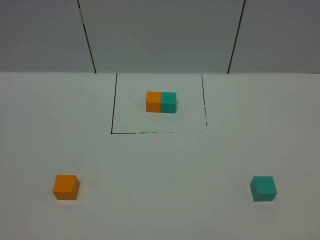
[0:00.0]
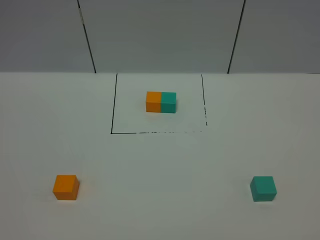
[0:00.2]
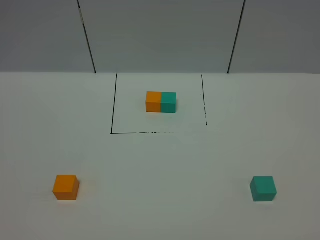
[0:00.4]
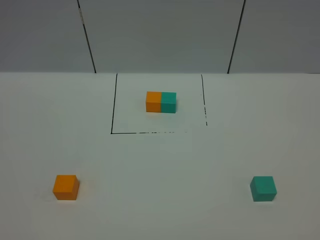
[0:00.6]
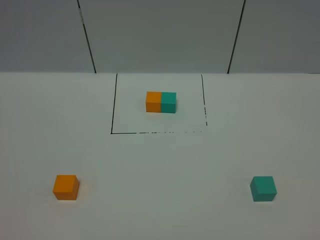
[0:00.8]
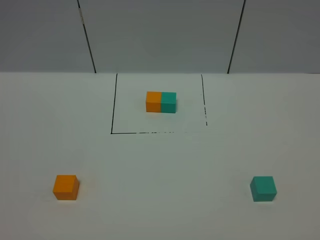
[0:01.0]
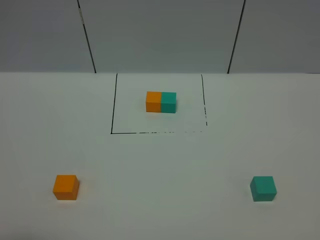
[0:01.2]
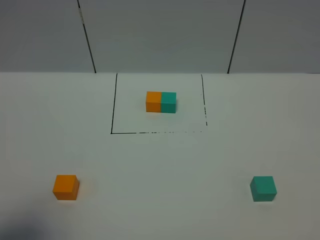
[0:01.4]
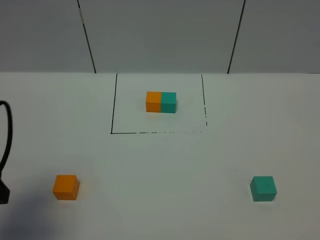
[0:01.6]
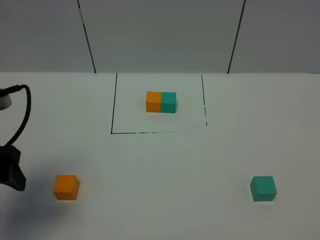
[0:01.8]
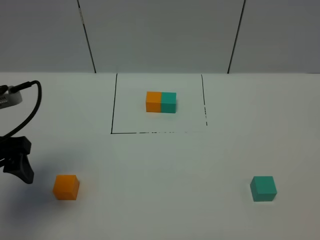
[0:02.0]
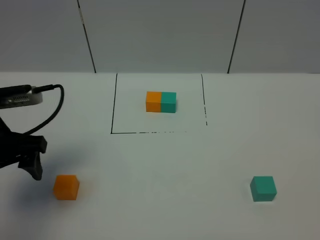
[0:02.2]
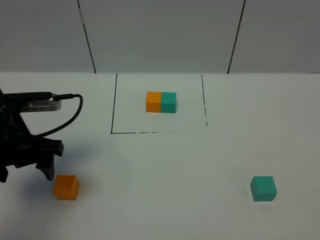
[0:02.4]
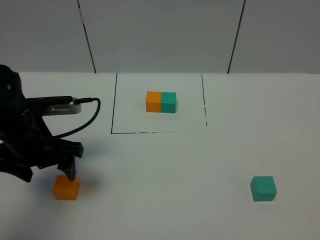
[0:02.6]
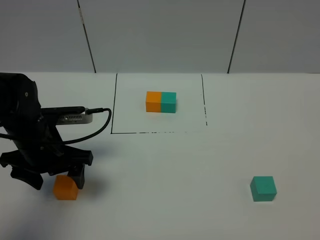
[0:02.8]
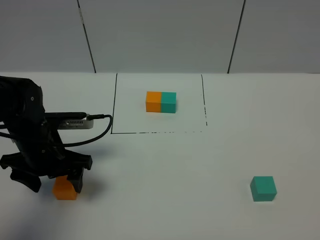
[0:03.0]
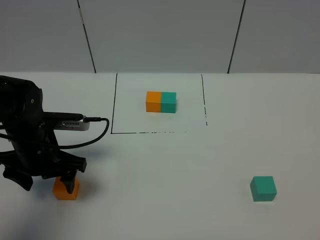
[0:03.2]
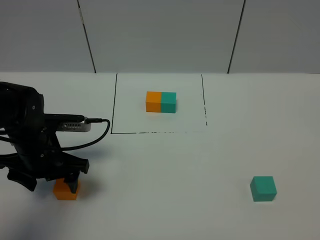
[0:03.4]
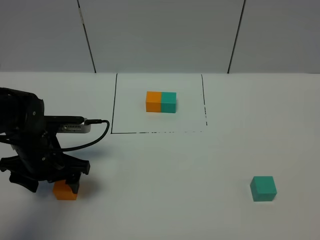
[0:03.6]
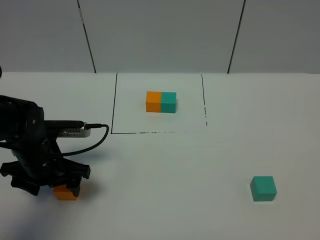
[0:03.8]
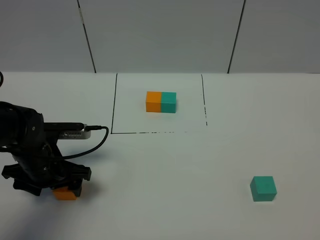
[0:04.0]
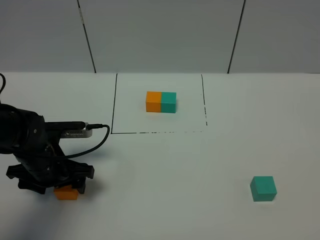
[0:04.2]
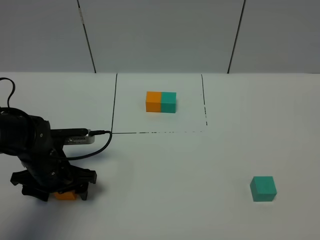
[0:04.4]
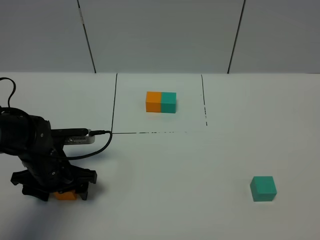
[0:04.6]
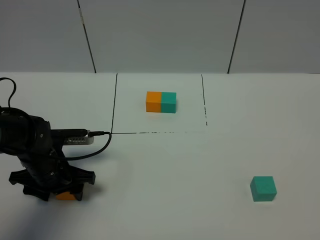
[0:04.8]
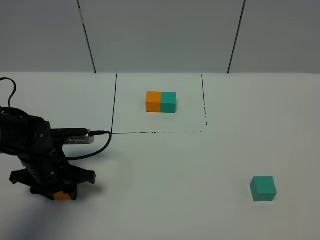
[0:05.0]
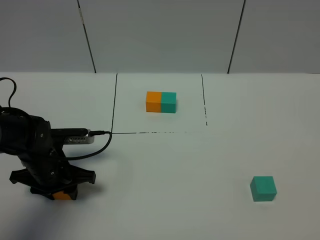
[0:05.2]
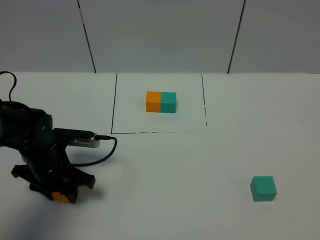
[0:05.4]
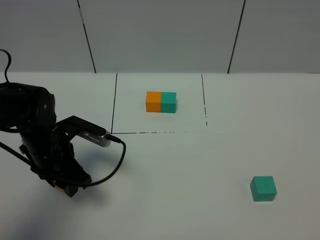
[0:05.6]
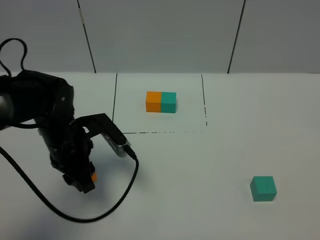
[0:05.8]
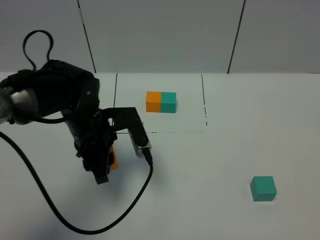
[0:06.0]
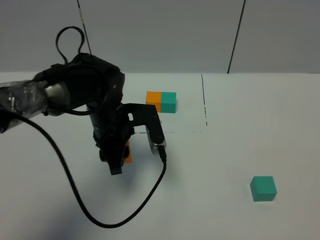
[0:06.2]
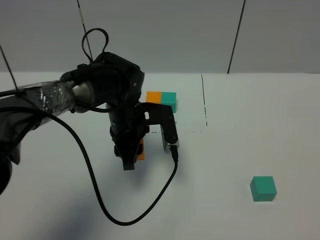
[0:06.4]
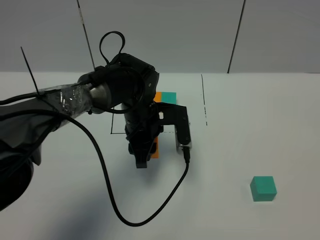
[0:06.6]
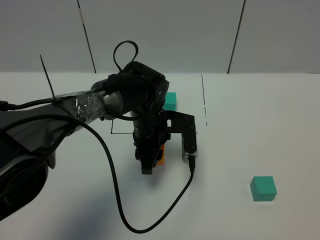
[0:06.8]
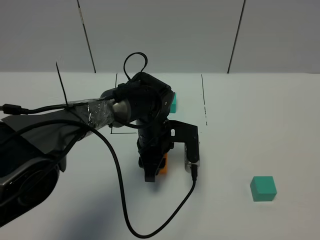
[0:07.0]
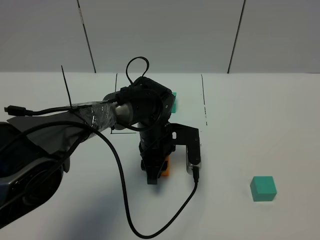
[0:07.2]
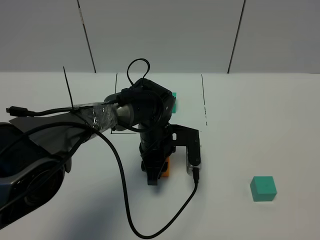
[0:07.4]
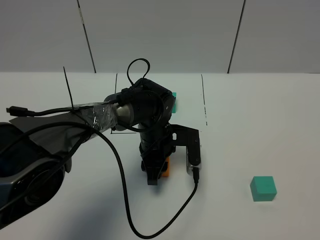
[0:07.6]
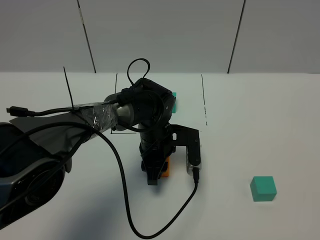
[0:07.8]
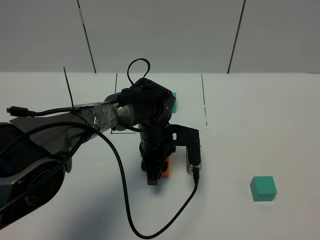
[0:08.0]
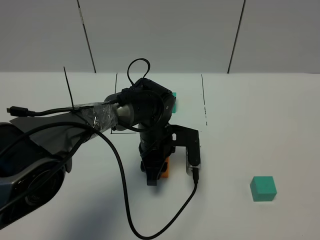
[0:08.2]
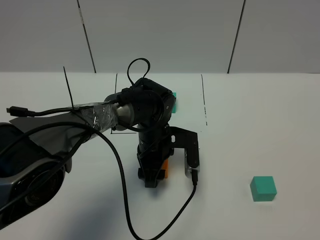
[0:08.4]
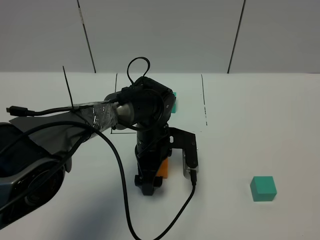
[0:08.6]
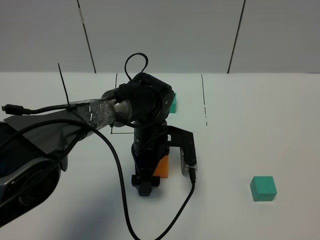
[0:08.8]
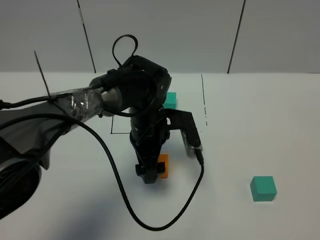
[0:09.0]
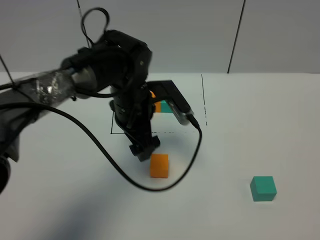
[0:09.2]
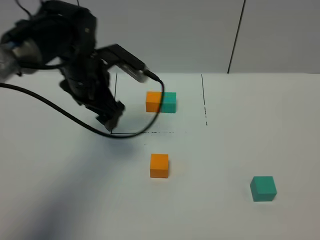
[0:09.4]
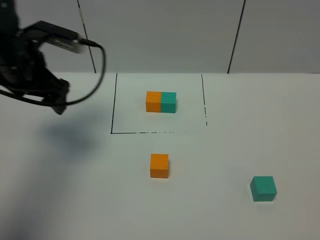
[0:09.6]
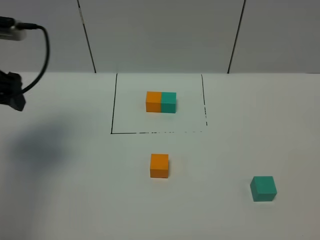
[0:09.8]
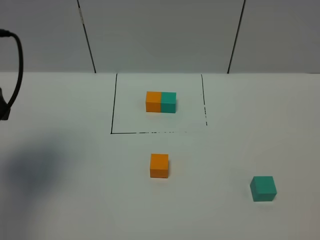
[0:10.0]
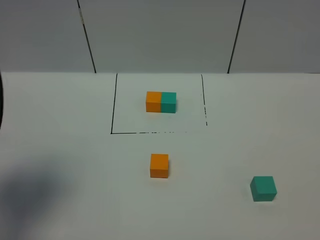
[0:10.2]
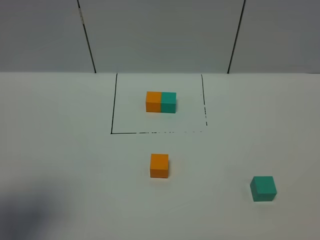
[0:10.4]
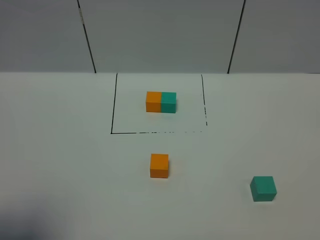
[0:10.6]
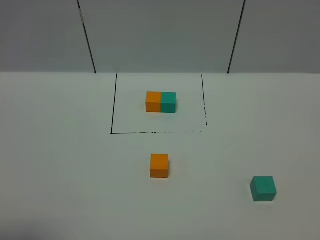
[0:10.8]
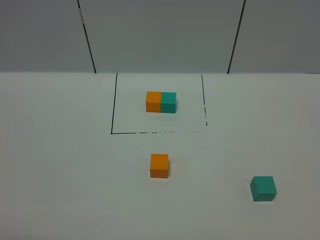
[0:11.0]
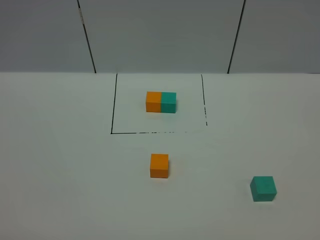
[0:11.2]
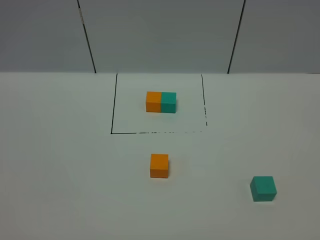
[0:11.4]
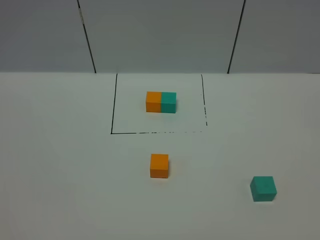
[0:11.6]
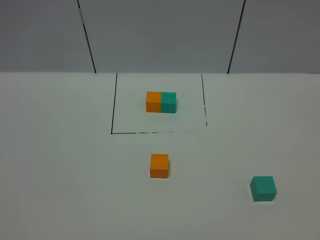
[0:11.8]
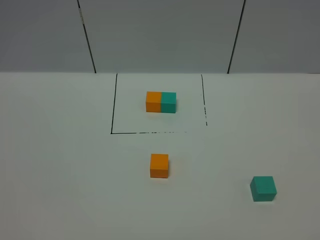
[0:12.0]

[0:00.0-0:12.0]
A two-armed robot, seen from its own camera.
Task of the whole recording: According to the building block template in front, assemble the scattered blocks together.
Step, 0:01.6 to 0:08.6: Put the orange cube in the center of the table.
0:00.0 to 0:01.6: The left gripper shifts approximately 20 cm forward.
0:01.6 to 0:03.0: The left gripper is displaced downward, forward and to the right by approximately 20 cm.
0:03.0 to 0:04.4: The left gripper travels downward by some 5 cm.
0:04.4 to 0:06.0: The left gripper moves to the right and upward, roughly 15 cm, and closes up.
0:06.0 to 0:07.6: The left gripper goes about 15 cm to the right and downward.
0:07.6 to 0:09.0: The left gripper heads upward, covering some 5 cm, and opens up.
0:09.0 to 0:10.4: The left gripper shifts approximately 40 cm to the left, backward and upward.
0:10.4 to 0:12.0: The left gripper heads backward and downward, covering some 15 cm.

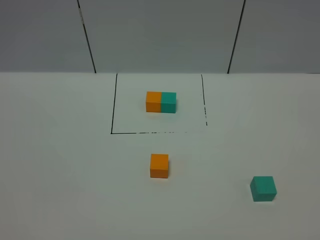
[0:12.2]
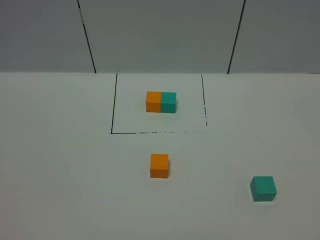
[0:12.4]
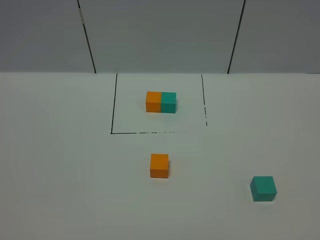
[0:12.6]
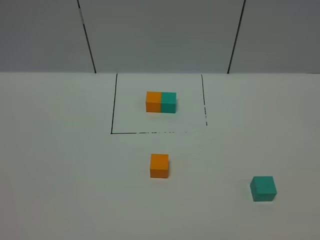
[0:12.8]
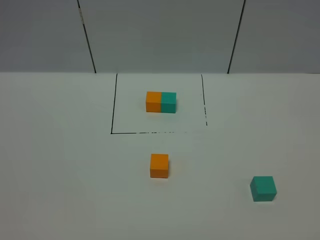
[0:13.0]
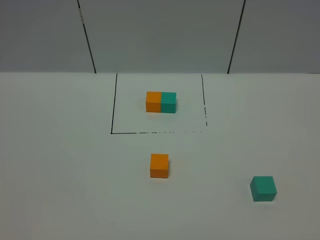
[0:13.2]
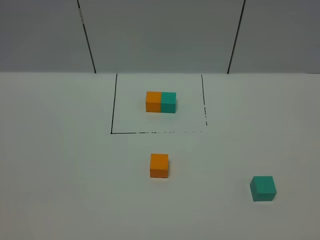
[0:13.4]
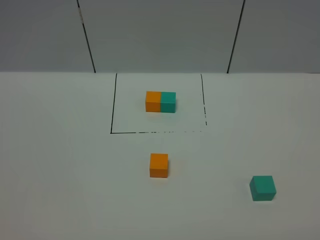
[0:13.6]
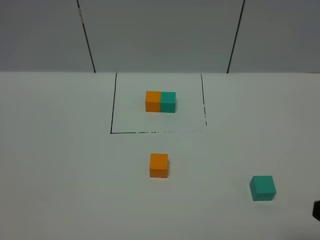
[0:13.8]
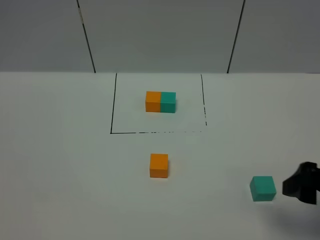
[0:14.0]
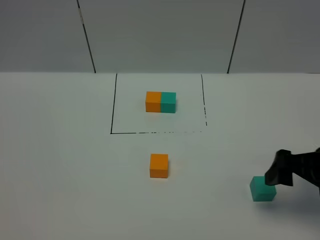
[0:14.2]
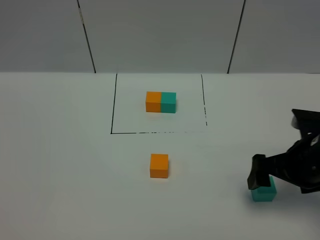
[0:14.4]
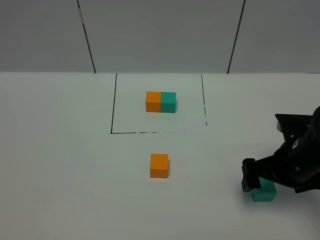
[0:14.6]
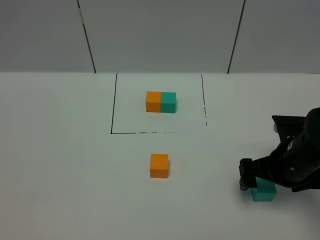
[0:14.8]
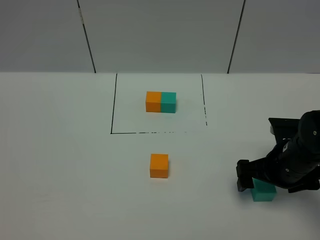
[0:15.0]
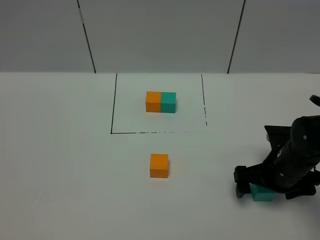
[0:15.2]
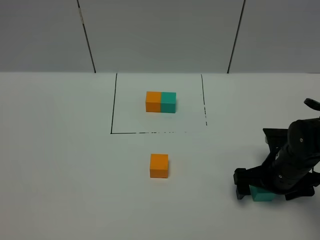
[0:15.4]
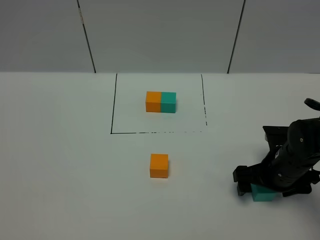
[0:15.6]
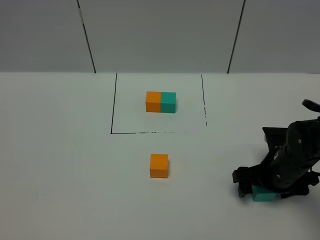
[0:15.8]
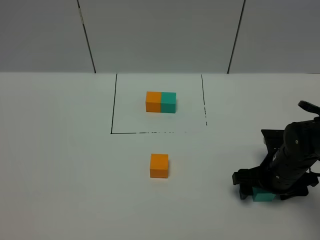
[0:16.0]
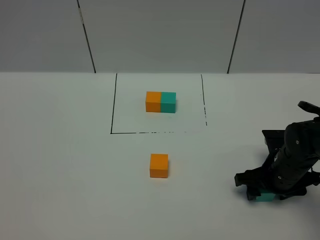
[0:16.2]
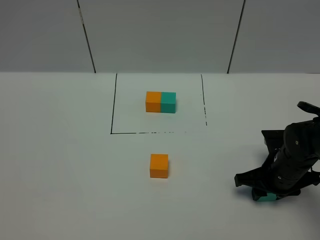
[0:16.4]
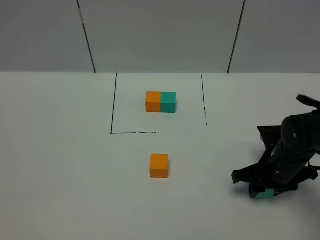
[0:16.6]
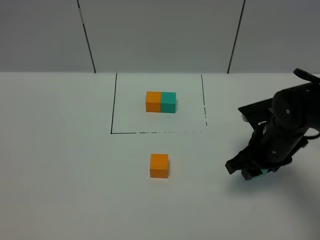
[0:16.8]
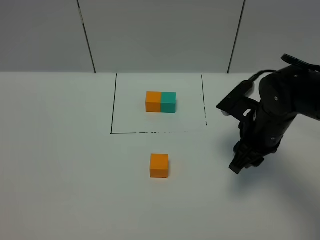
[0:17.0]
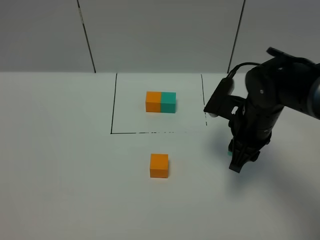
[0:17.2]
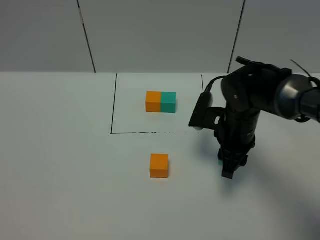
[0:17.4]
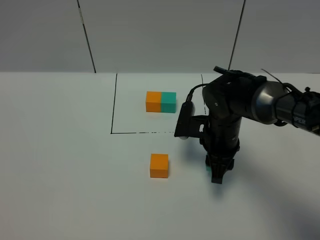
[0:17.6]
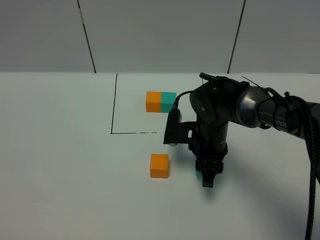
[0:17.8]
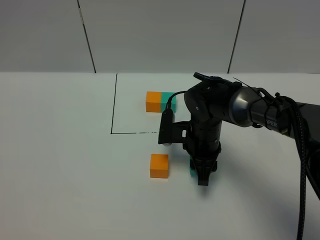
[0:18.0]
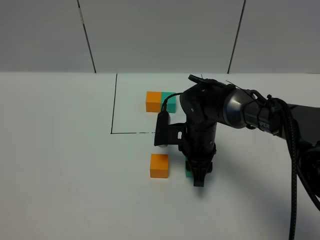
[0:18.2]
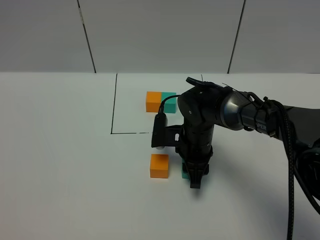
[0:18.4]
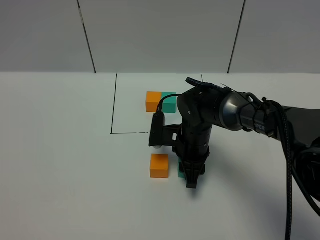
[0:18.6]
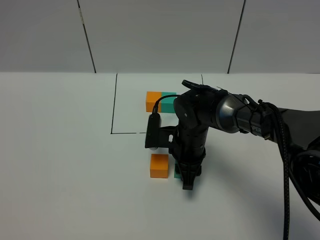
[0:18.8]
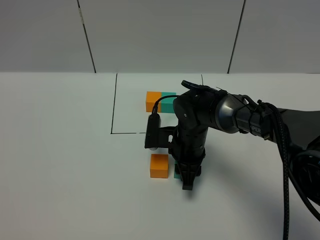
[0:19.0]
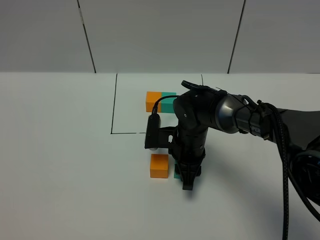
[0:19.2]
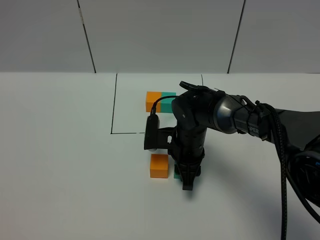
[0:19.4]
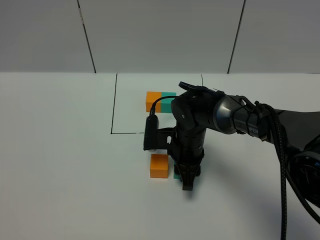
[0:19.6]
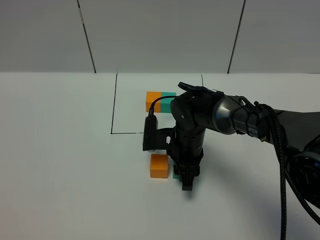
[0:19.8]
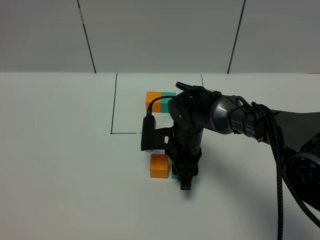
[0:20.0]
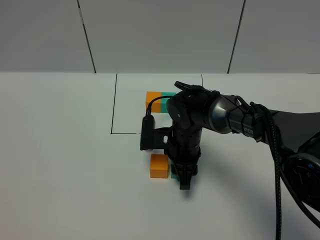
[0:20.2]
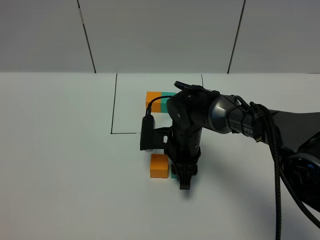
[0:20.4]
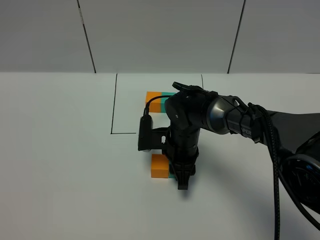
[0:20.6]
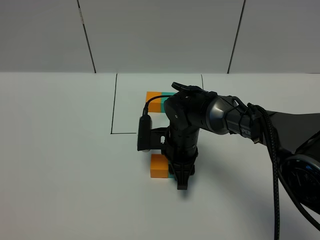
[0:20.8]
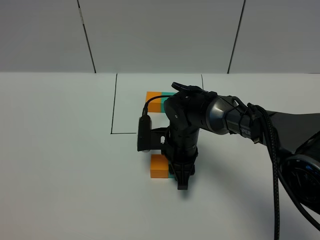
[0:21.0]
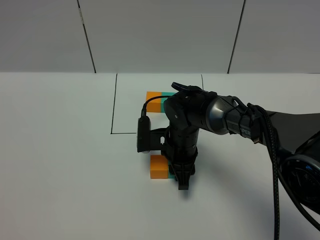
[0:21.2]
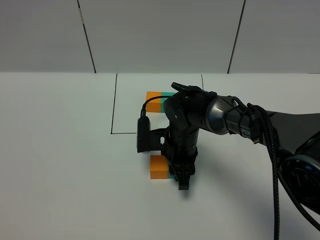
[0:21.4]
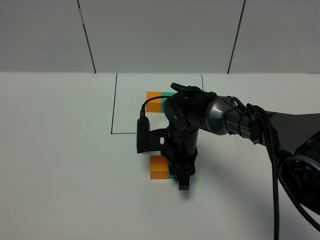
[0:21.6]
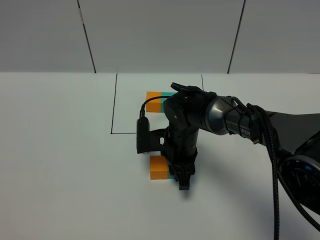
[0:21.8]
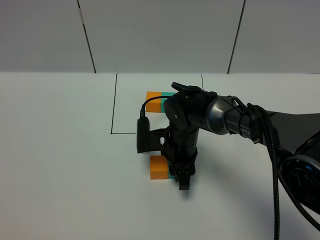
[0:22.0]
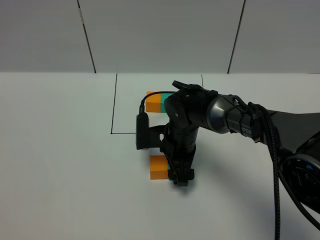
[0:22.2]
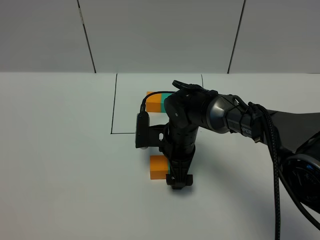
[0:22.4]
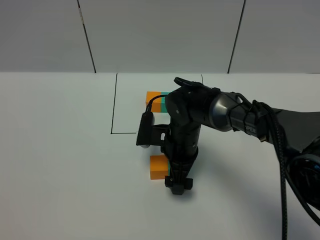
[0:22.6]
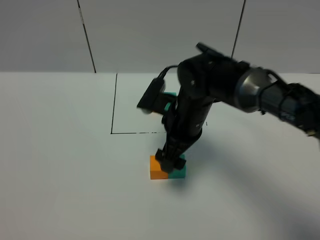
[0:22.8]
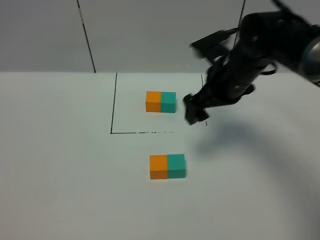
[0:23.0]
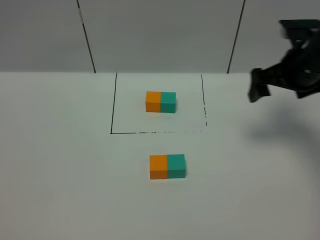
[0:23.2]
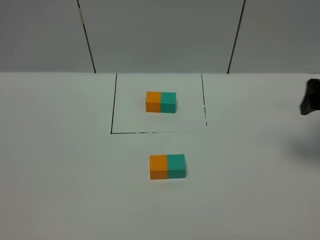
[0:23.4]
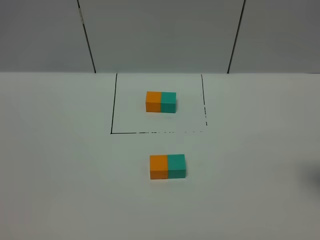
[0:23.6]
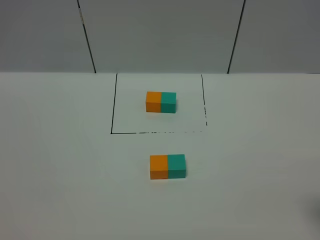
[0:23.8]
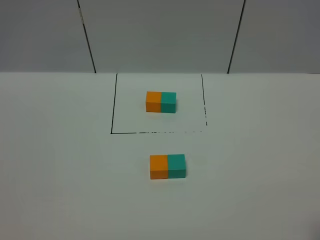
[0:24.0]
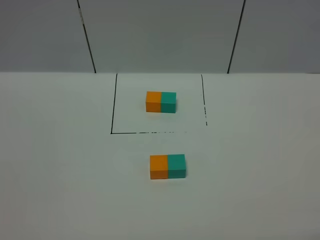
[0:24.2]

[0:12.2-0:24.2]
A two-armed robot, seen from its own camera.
Task of the whole recording: According to the building block template in front, assemble the scattered blocks together.
Step, 0:12.2 to 0:22.4: Put the green cube on the right of the orange cube.
0:13.8 to 0:15.2: The right gripper shifts approximately 25 cm forward and downward.
0:15.2 to 0:16.6: The right gripper closes up.
0:16.6 to 0:18.2: The right gripper travels to the left and forward by about 15 cm.
0:18.2 to 0:19.8: The grippers stay close to where they were, moving slightly.
0:19.8 to 0:21.2: The two grippers keep their place.
0:21.2 to 0:22.6: The right gripper opens its fingers.
0:22.6 to 0:24.2: The right gripper heads backward, to the right and upward, covering some 40 cm.
